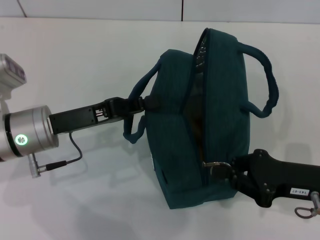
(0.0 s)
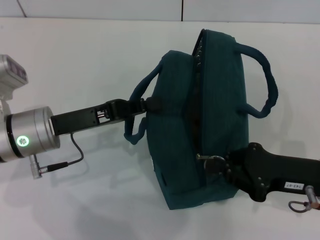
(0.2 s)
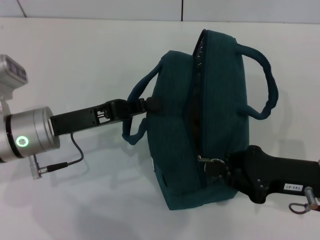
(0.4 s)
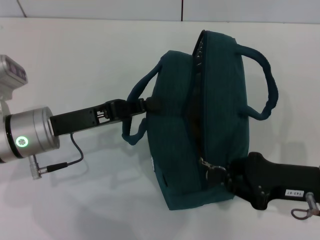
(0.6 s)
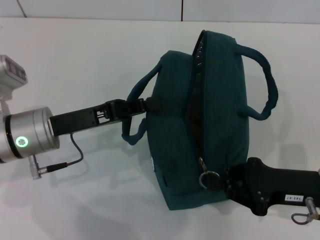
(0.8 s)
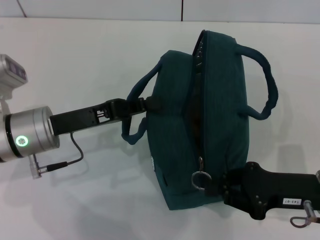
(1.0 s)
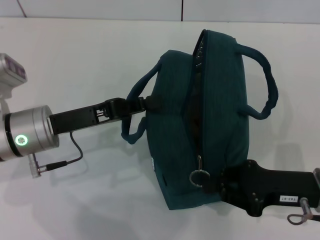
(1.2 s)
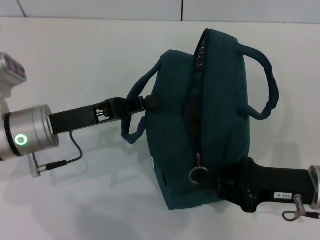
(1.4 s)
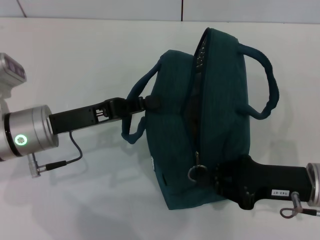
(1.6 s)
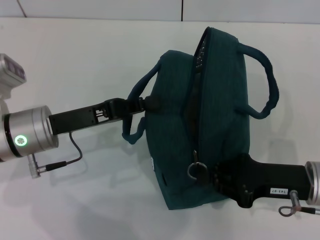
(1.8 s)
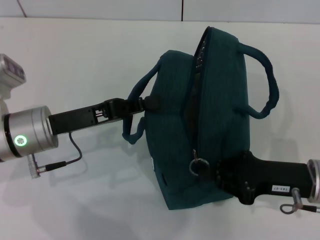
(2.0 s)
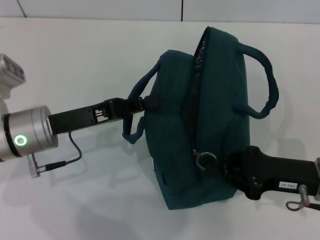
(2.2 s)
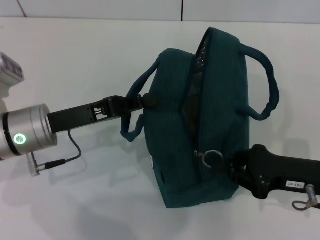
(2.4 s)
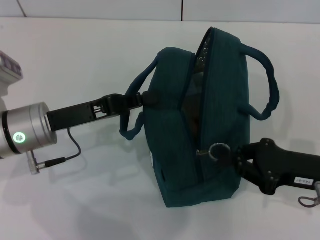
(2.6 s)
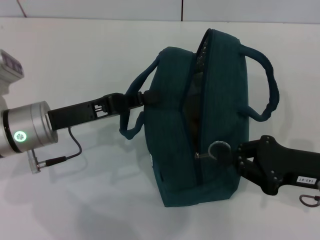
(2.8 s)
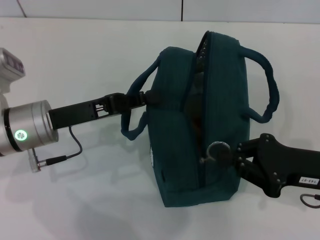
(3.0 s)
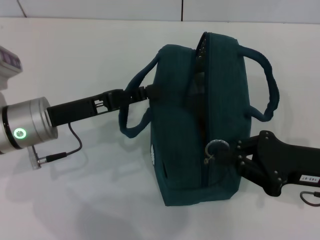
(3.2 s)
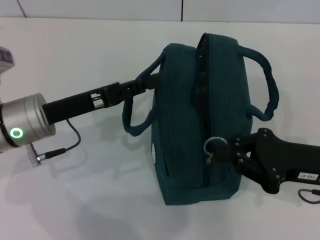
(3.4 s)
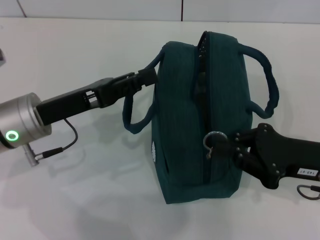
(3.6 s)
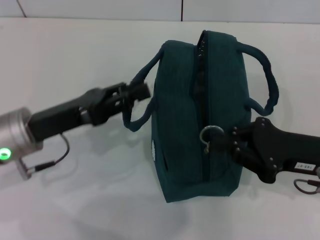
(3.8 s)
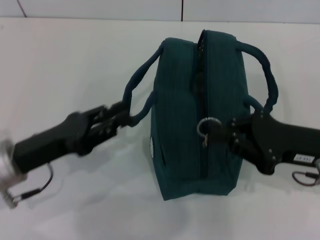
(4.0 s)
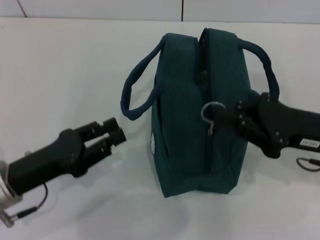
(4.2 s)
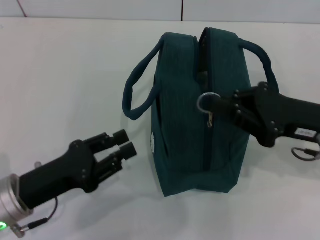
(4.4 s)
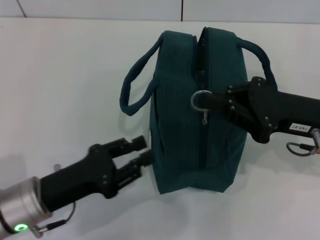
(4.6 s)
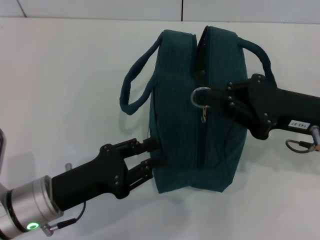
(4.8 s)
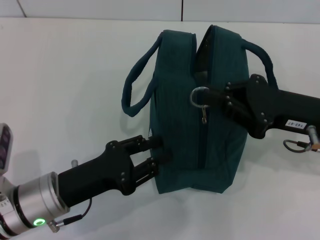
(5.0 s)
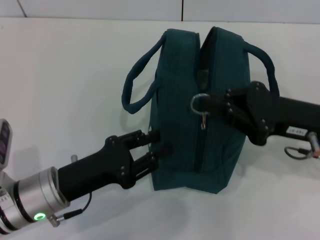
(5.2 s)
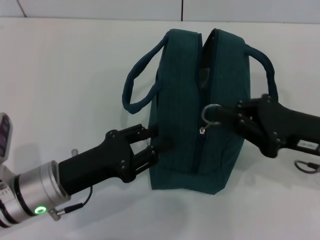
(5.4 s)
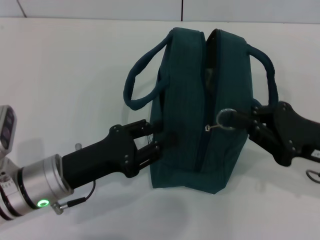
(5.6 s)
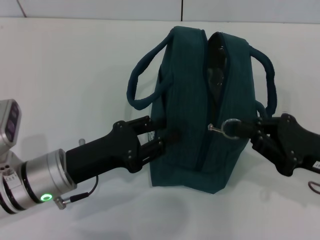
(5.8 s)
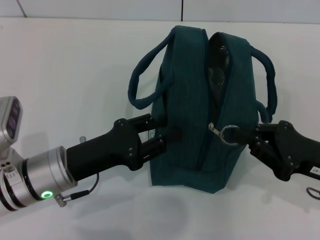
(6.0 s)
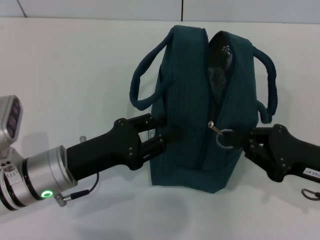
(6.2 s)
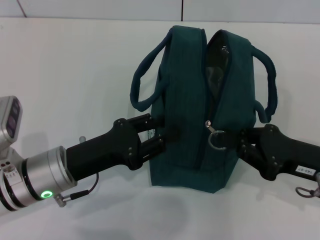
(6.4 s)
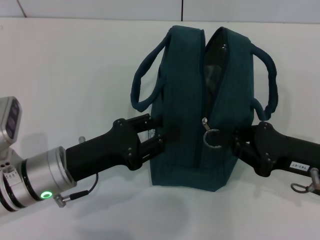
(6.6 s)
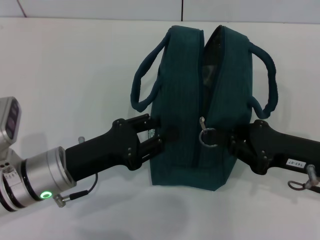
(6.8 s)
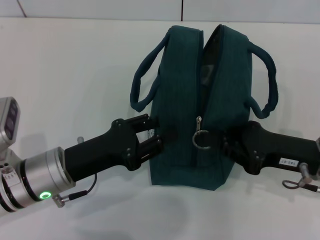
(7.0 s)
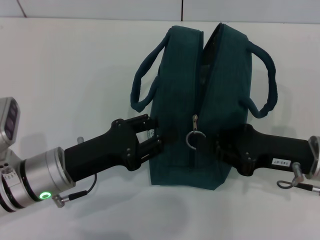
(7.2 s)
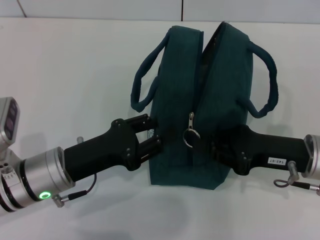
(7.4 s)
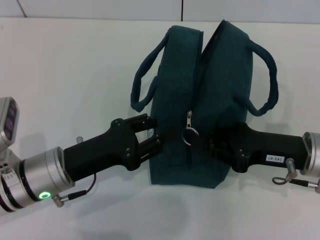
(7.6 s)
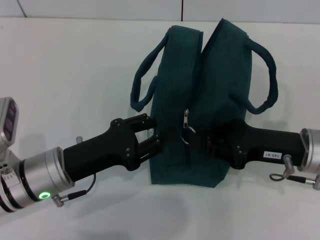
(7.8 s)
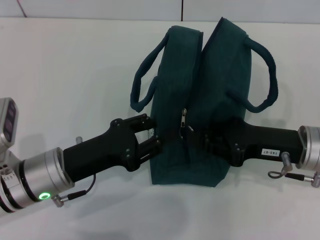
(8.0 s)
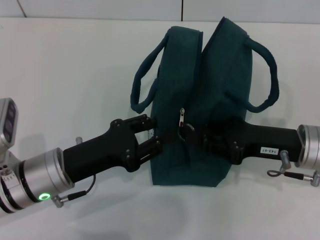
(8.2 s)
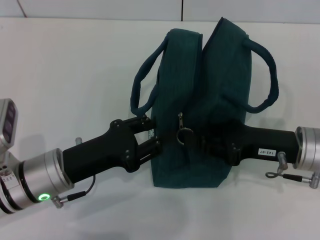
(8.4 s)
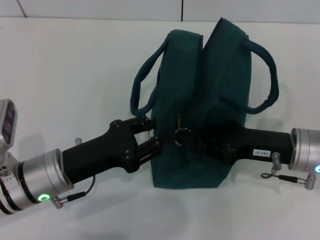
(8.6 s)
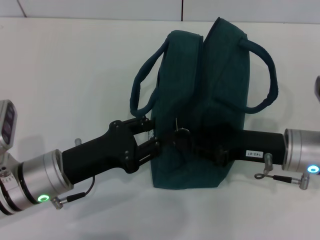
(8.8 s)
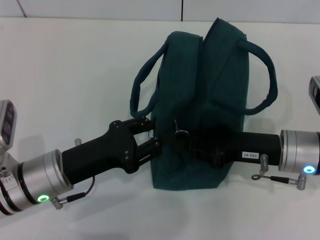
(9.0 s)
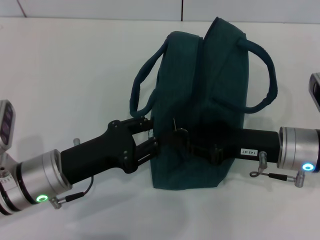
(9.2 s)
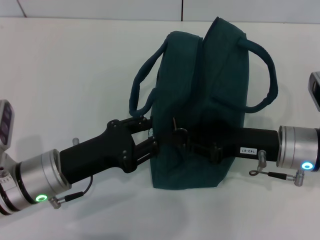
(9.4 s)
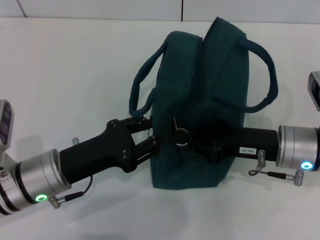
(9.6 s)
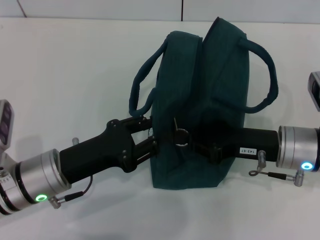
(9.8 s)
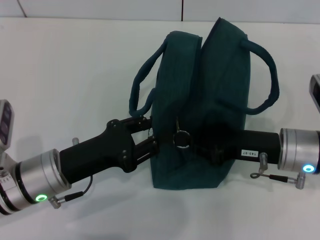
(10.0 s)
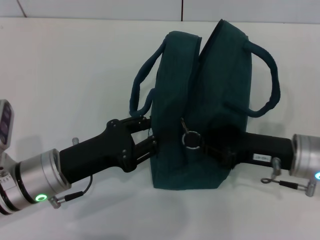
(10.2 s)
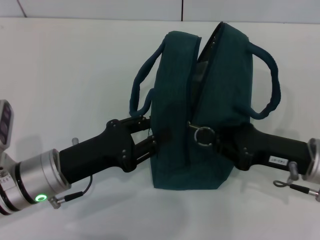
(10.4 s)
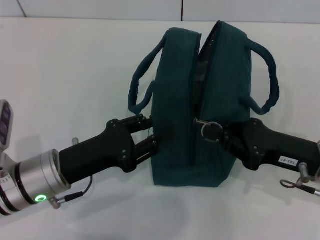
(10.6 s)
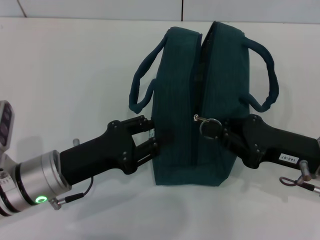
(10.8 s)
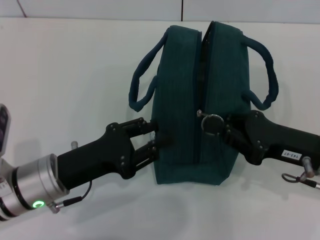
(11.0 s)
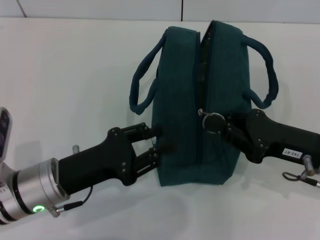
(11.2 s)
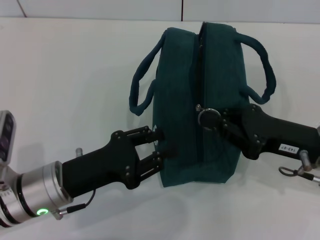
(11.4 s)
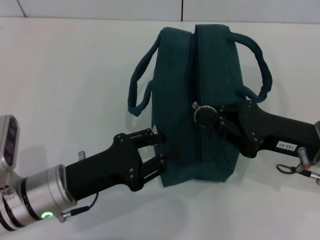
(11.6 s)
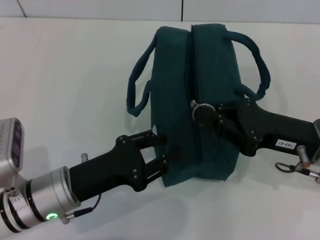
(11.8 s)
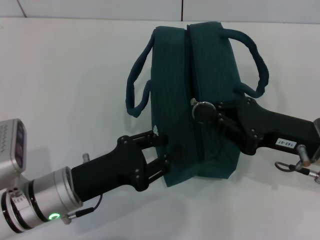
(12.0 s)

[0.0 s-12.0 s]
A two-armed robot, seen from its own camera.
Step, 0.0 to 3.4 s: Hold the lunch bag with your left hand.
0.0 to 3.0 s: There are only small adjustments of the grippers.
3.0 to 4.4 s: The left gripper is displaced backward by some 10 cm, and opens up. Meanwhile the right gripper ends up some 5 cm from where it was.
4.4 to 6.0 s: The right gripper ends up approximately 5 cm from where it was, while the left gripper goes some 5 cm to the right.
6.0 to 7.6 s: The right gripper ends up about 5 cm from where it was.
7.6 to 10.4 s: The grippers make only small movements.

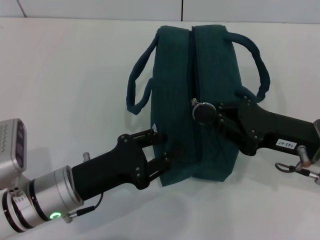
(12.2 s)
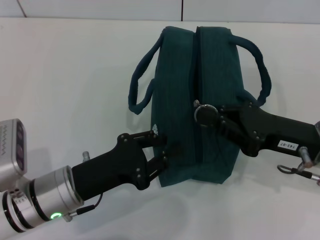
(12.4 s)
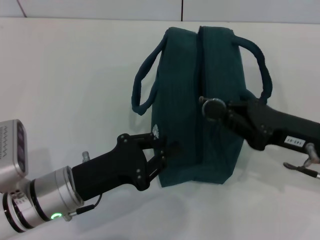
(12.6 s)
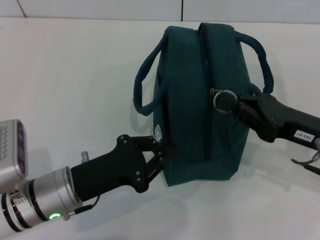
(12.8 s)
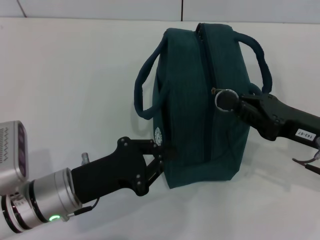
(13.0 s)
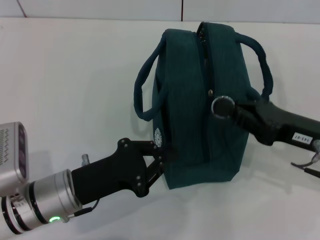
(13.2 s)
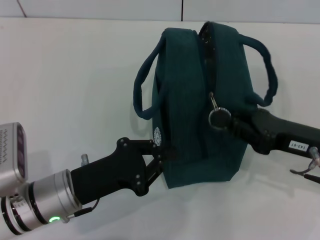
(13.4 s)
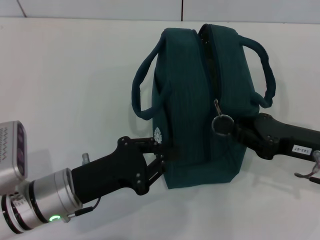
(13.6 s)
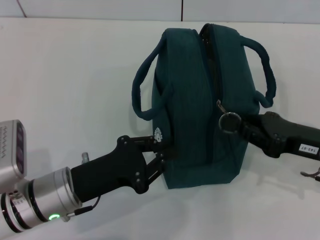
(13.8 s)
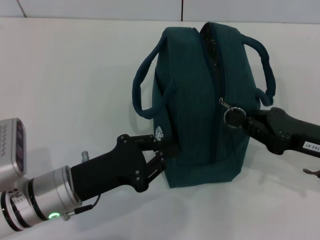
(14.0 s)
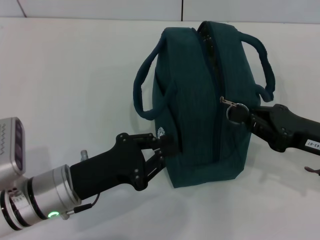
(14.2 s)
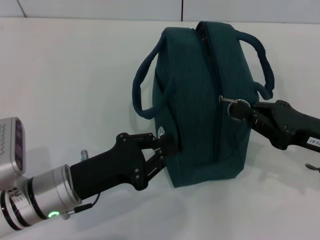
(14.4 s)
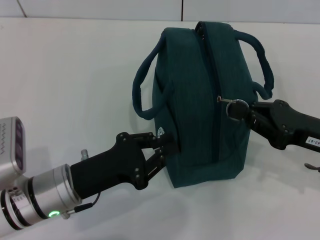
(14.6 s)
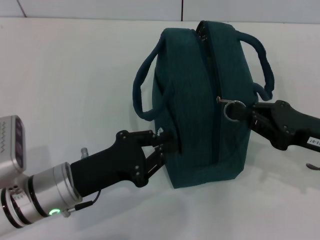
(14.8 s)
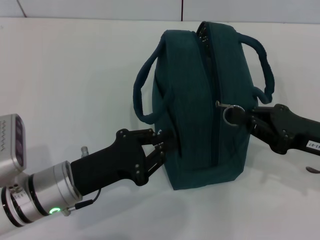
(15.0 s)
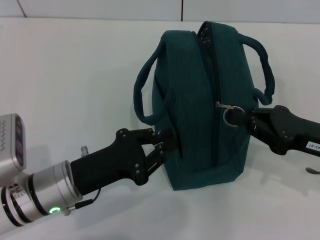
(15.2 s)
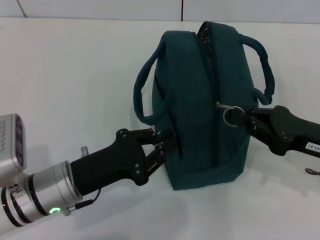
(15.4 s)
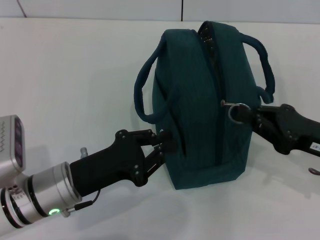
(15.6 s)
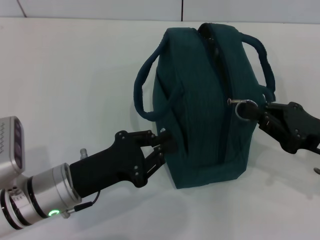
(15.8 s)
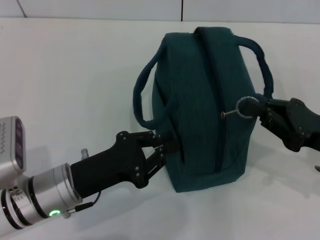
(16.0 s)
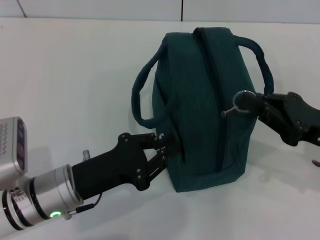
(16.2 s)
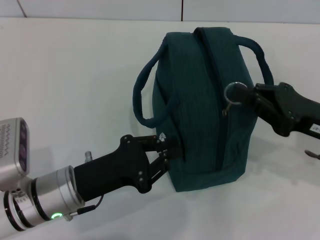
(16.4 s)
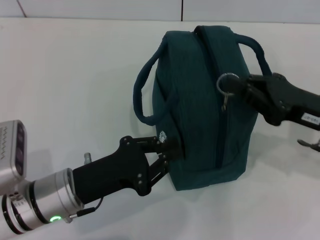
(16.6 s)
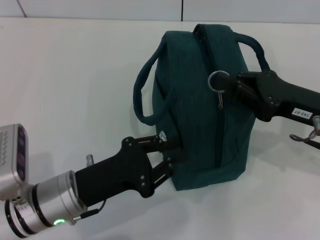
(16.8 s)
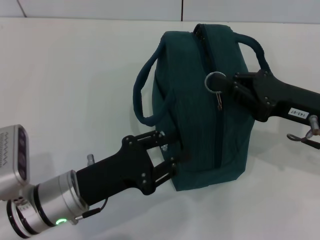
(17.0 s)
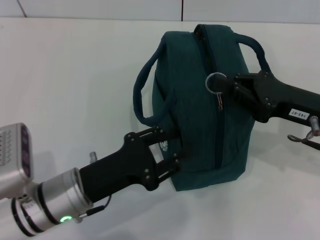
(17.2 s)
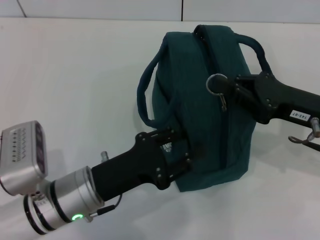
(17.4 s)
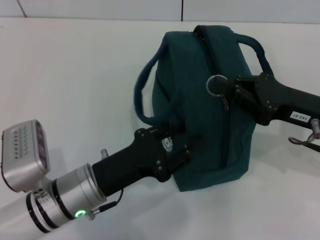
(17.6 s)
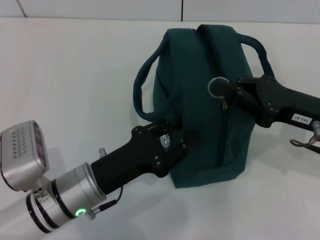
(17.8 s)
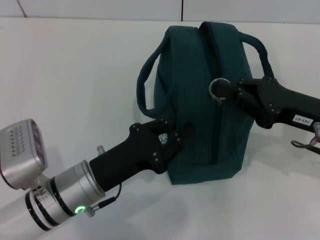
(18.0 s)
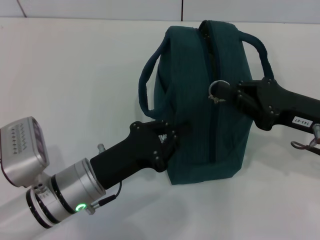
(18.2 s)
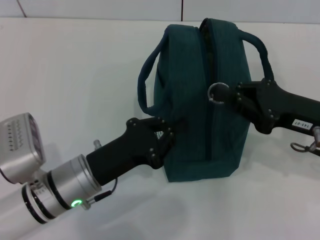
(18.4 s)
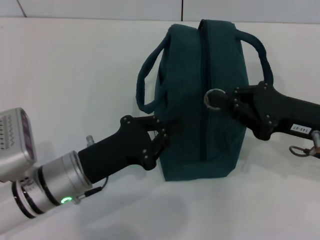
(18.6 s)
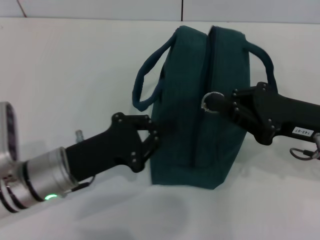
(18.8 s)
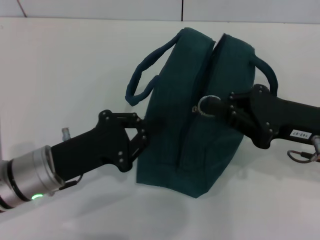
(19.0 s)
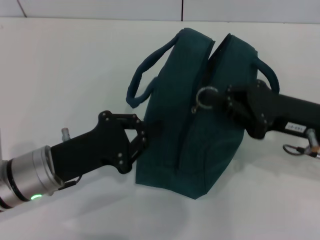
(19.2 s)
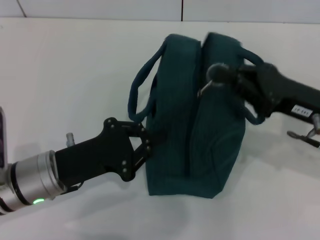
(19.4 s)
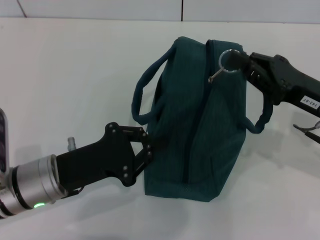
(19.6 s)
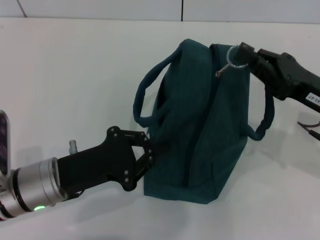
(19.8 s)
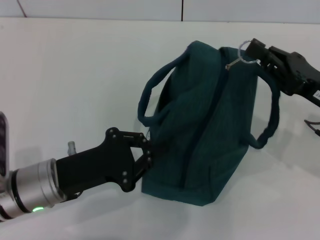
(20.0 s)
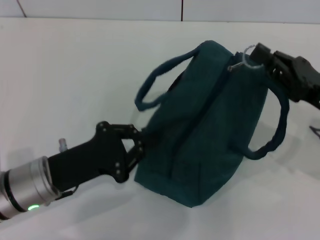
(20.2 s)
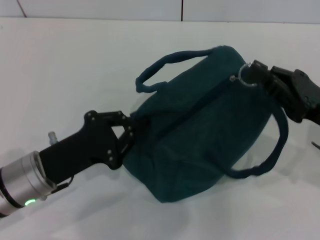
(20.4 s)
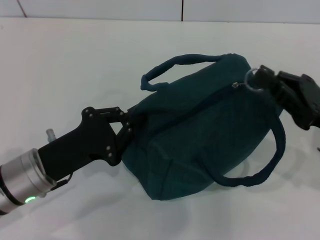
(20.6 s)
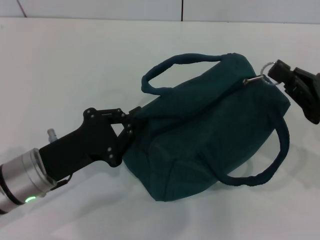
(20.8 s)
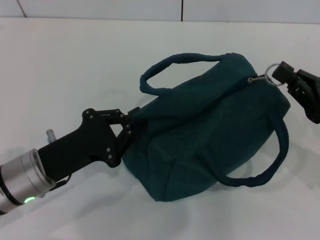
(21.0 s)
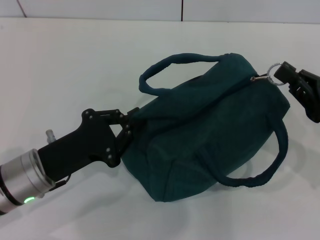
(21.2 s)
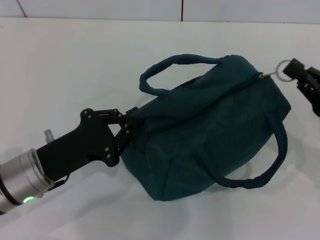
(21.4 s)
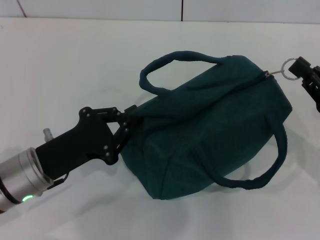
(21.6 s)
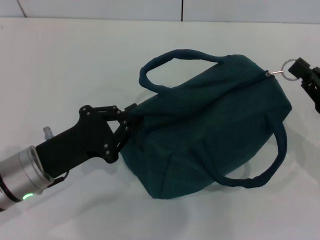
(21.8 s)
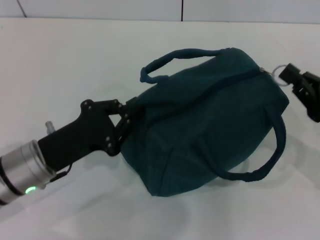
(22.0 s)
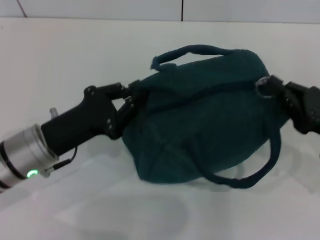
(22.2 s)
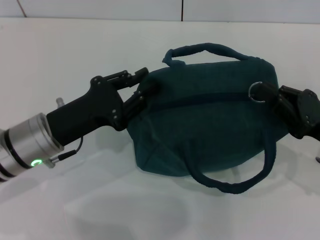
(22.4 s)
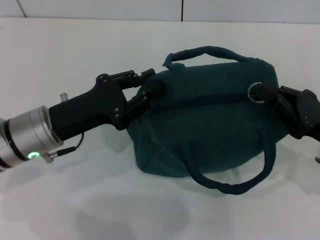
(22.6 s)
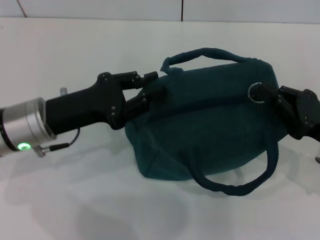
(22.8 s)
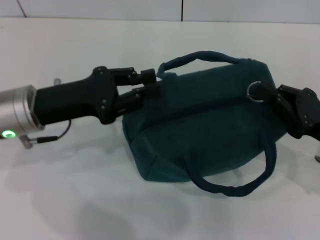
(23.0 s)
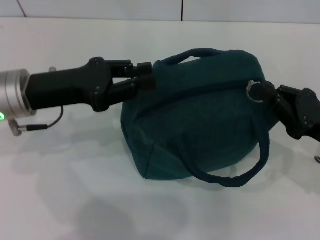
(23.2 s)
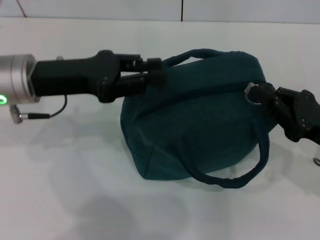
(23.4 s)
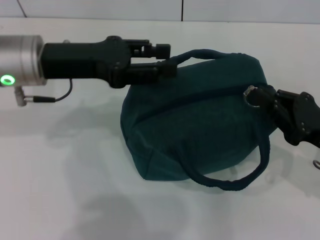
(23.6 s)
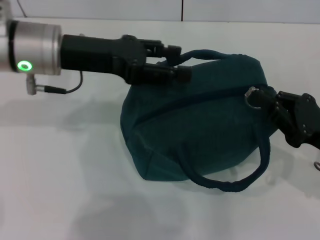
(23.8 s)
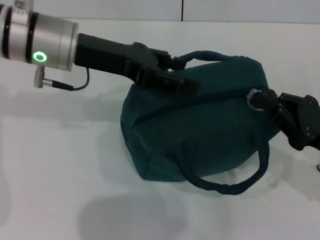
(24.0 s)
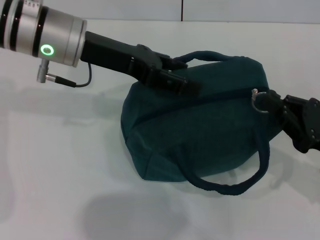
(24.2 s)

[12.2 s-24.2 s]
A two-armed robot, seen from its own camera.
12.2 to 13.8 s: The left gripper closes its fingers.
13.8 to 18.2 s: The grippers make only small movements.
18.2 to 19.8 s: The left gripper moves about 5 cm.
19.8 to 21.2 s: The right gripper ends up roughly 5 cm from where it was.
21.2 to 22.6 s: The left gripper moves roughly 5 cm.
22.6 to 24.2 s: The left gripper goes some 15 cm upward and forward, and opens up.
